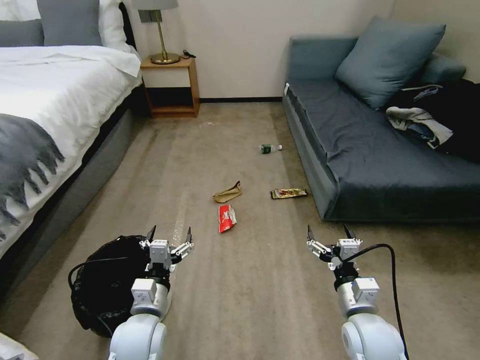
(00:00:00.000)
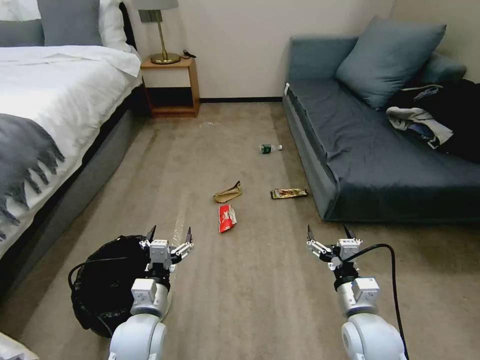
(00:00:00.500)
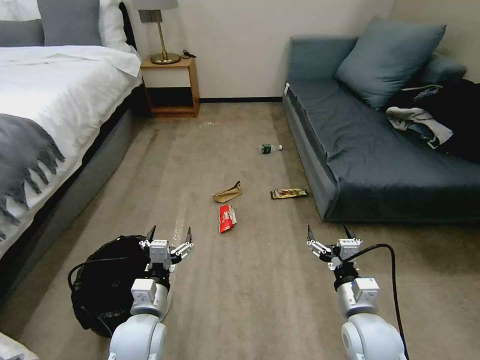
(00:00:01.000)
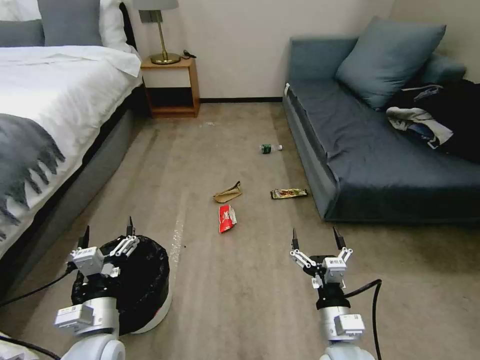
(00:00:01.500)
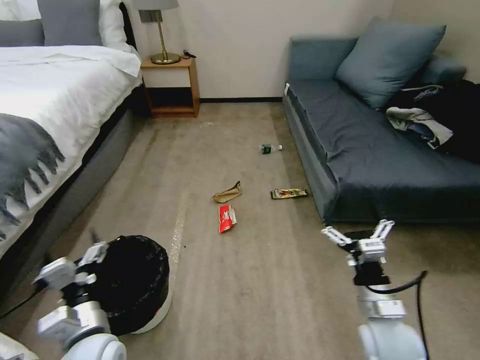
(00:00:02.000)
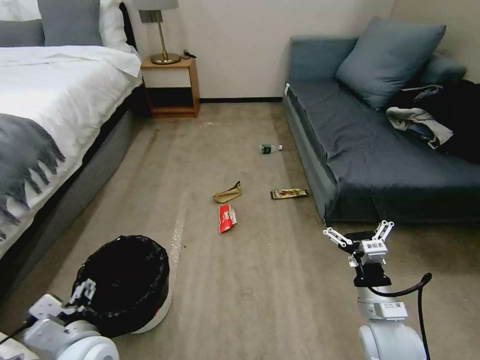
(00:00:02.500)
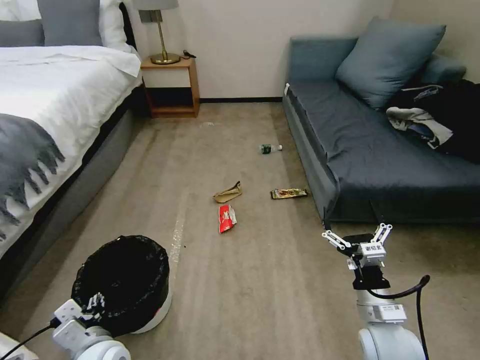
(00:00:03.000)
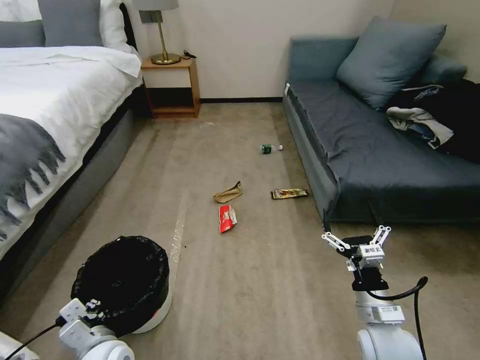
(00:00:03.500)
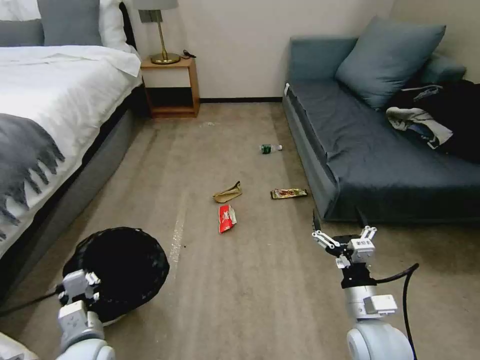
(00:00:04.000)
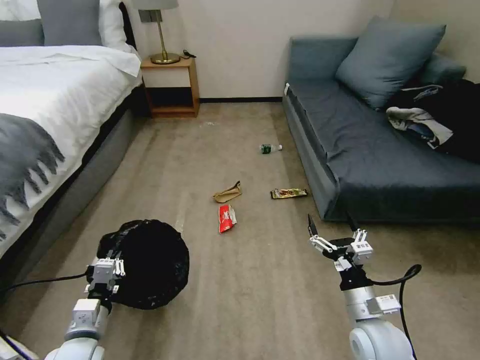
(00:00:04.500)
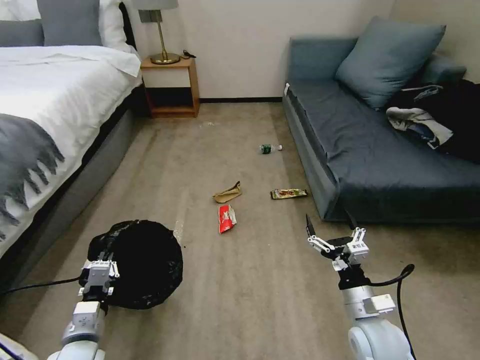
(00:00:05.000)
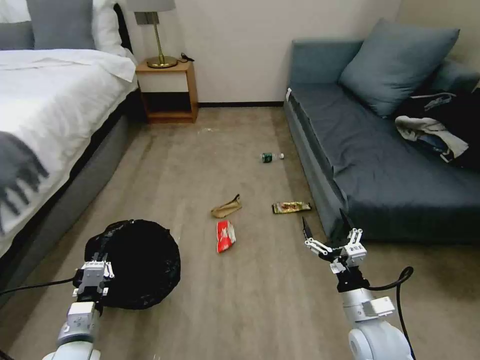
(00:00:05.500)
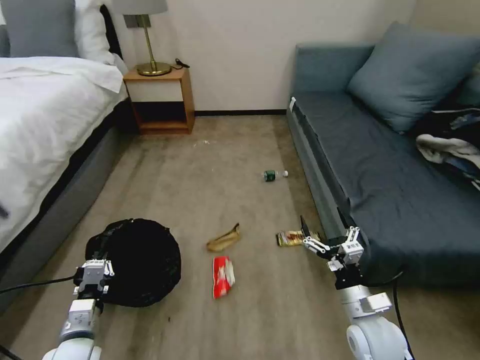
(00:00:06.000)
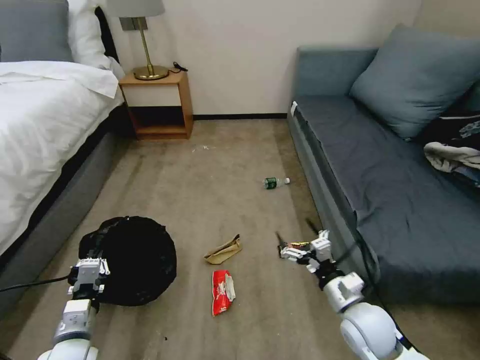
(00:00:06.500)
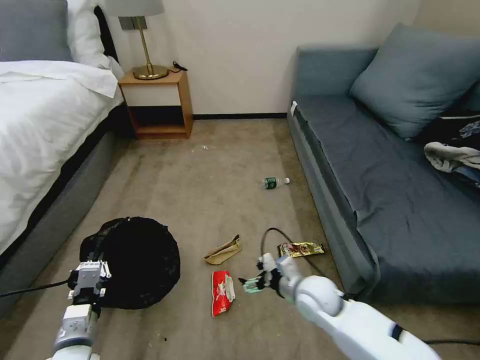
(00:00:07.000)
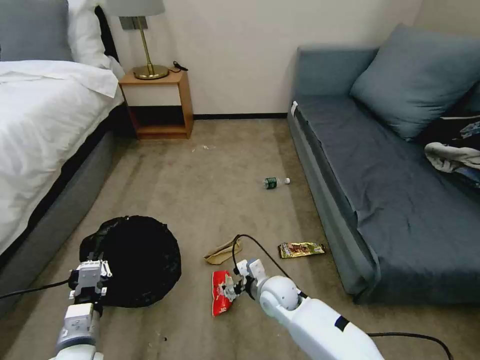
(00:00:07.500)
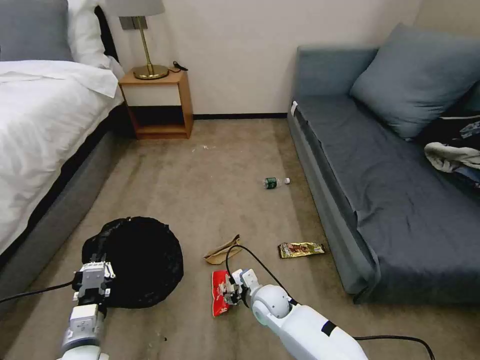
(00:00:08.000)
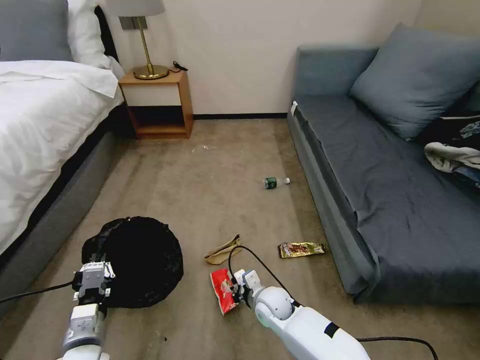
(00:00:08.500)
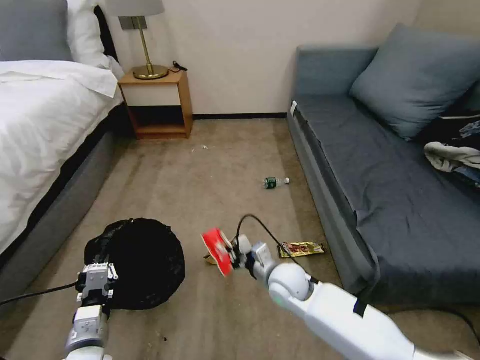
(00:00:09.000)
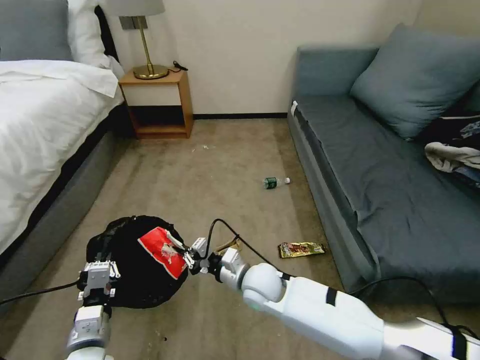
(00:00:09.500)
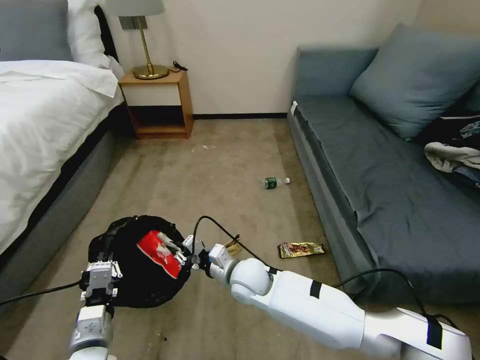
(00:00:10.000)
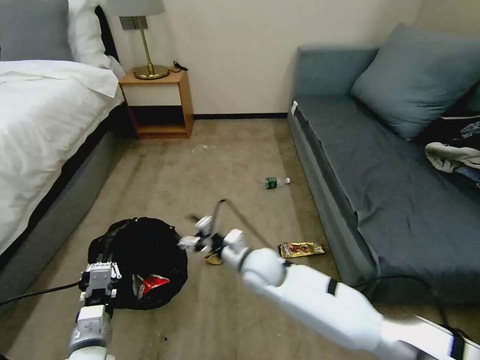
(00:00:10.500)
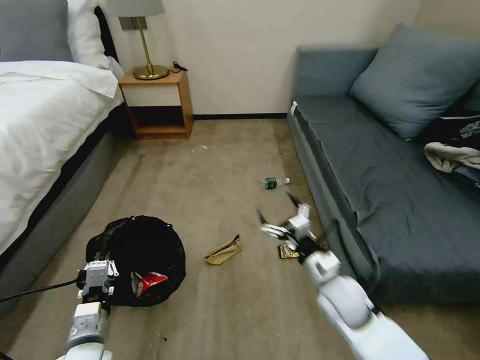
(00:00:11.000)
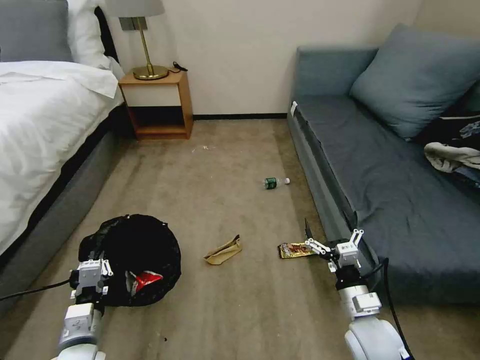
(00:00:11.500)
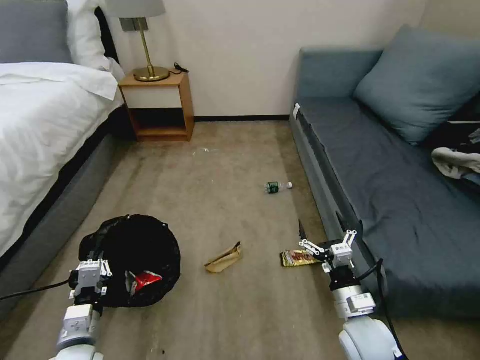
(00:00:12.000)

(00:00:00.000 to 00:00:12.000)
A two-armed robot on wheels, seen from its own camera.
Task of the whole recording: Pick up the trash bin, then pick up the garbage on the floor and place it into the trash bin.
00:00:02.000 - 00:00:04.000: The left gripper moves downward, roughly 5 cm, and closes its fingers.
00:00:06.000 - 00:00:08.000: The right gripper moves to the left, downward and forward, about 25 cm.
00:00:08.000 - 00:00:10.000: The right gripper travels upward and to the left by approximately 10 cm, and closes its fingers.
00:00:10.000 - 00:00:12.000: The right gripper heads to the right and backward, covering approximately 25 cm, and opens.

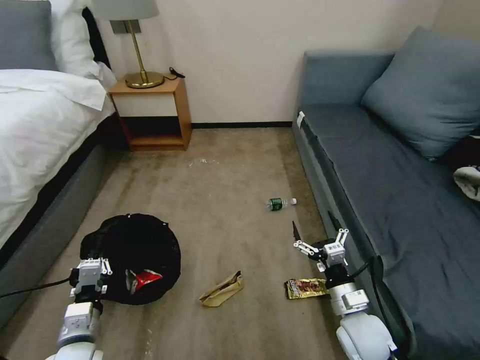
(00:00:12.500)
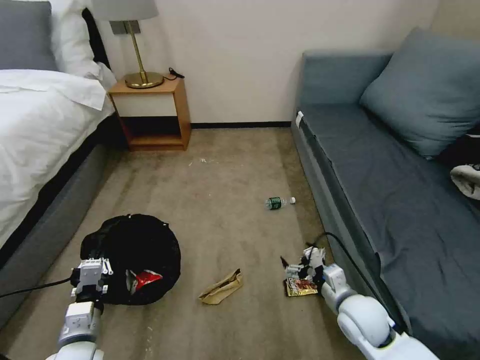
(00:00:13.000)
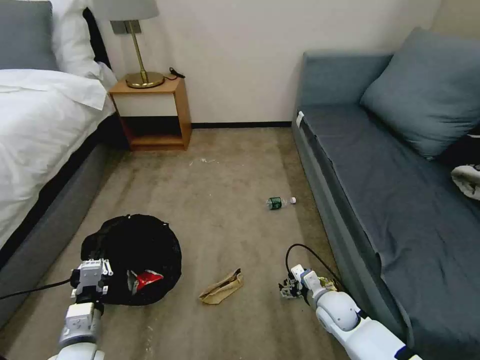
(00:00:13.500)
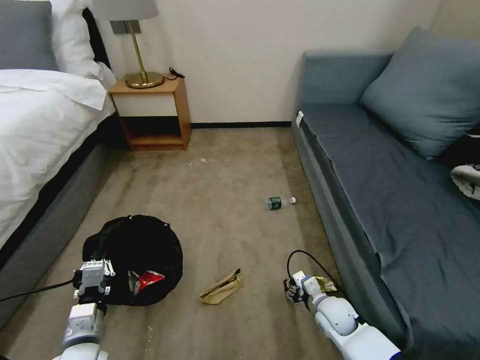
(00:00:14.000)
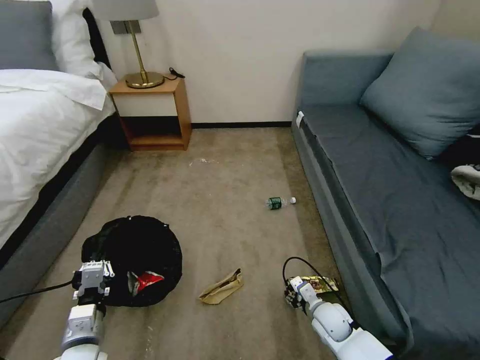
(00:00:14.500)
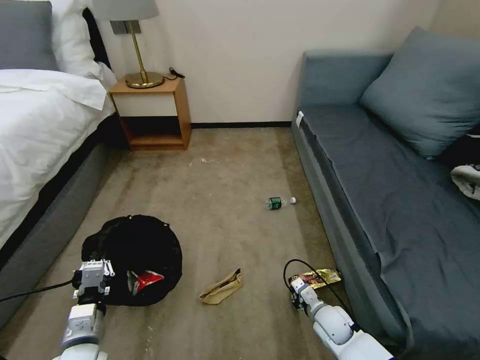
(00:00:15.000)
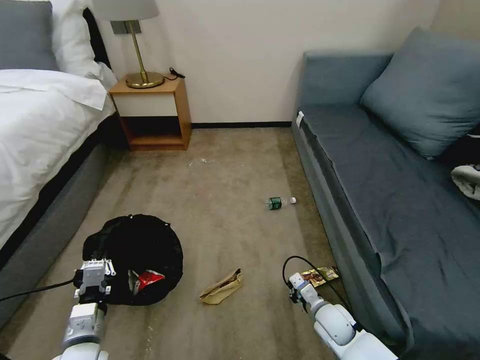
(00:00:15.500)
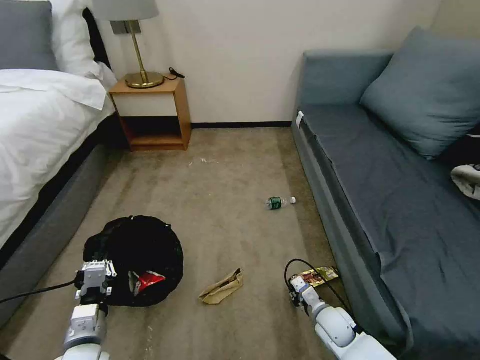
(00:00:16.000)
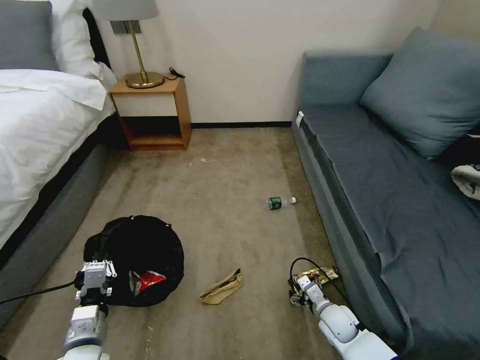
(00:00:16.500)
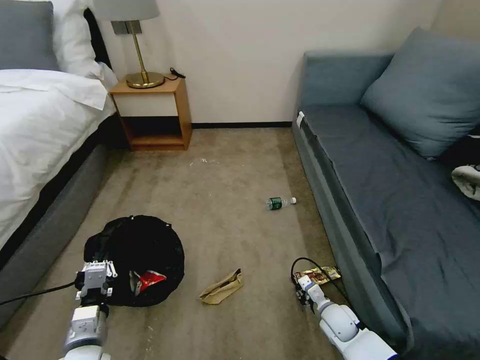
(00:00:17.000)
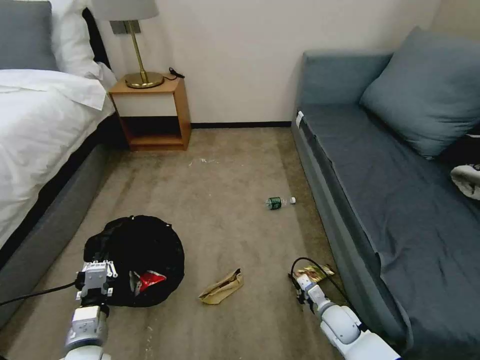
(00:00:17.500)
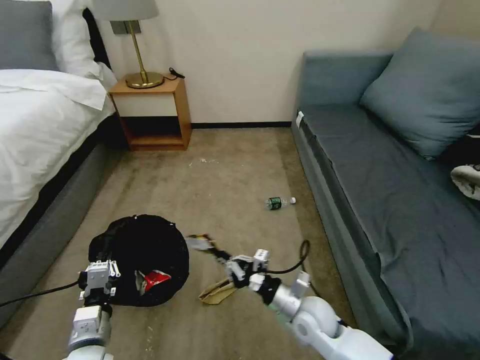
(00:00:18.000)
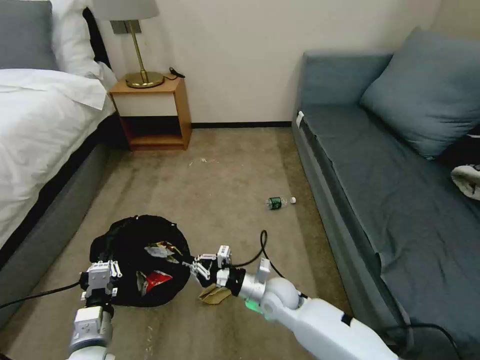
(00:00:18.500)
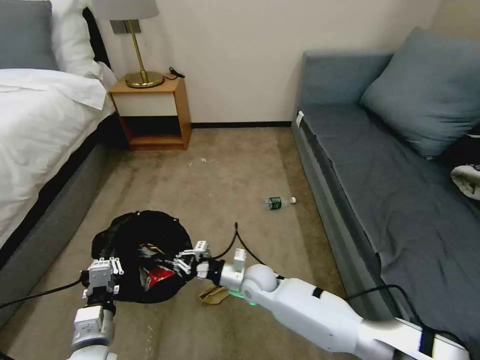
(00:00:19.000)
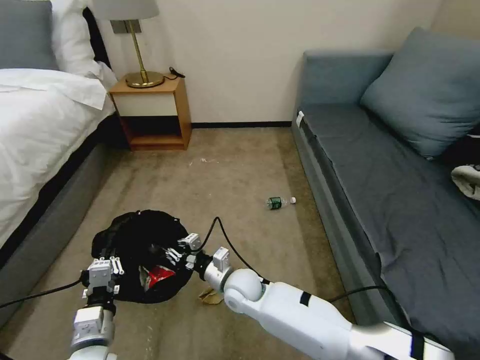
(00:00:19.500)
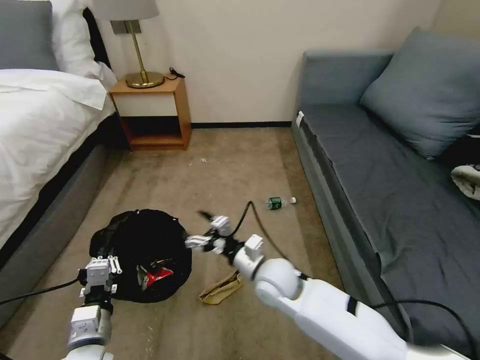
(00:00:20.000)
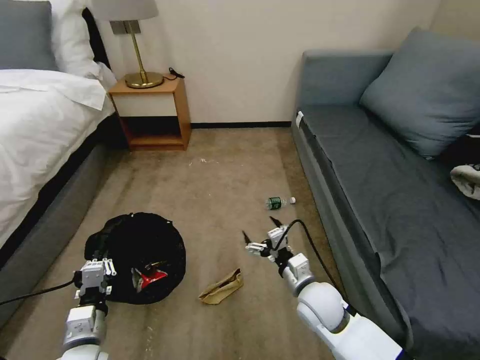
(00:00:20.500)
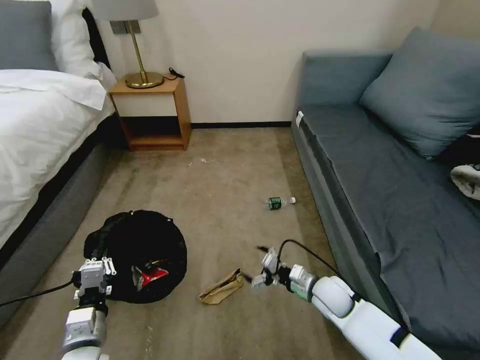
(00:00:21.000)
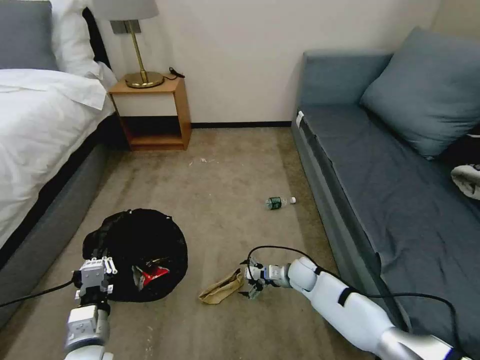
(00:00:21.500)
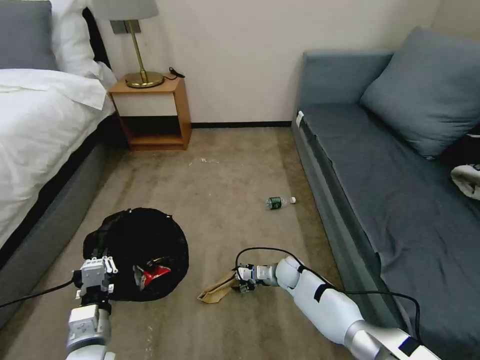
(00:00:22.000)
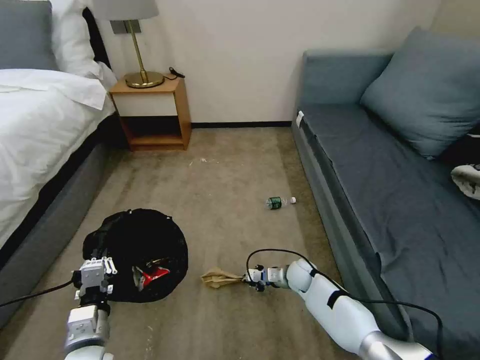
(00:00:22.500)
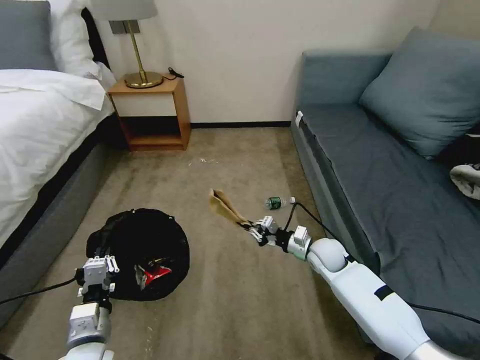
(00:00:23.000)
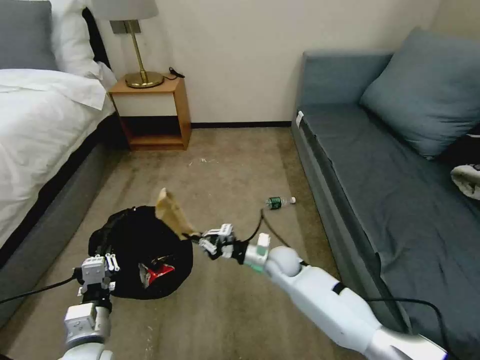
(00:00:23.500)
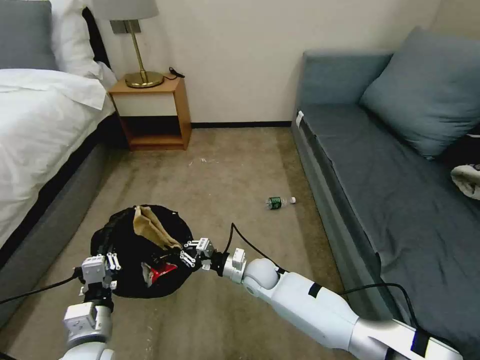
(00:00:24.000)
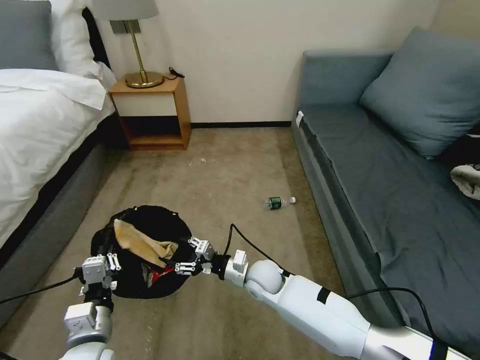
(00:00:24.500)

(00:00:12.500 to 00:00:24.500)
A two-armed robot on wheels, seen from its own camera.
Task of the whole recording: Pick up the trash bin, then pick up the garbage on the floor and place it into the trash bin.
00:00:12.500 - 00:00:14.500: The right gripper shifts roughly 15 cm downward and forward, and closes up.
00:00:14.500 - 00:00:16.500: The right gripper closes and opens again.
00:00:16.500 - 00:00:18.500: The right gripper is displaced to the left and upward by some 20 cm, and closes its fingers.
00:00:18.500 - 00:00:20.500: The right gripper moves to the right and upward, about 10 cm, and opens.
00:00:20.500 - 00:00:22.500: The right gripper heads downward and forward, covering roughly 20 cm, and closes up.
00:00:22.500 - 00:00:24.500: The right gripper heads to the left and upward, covering roughly 15 cm, and opens.

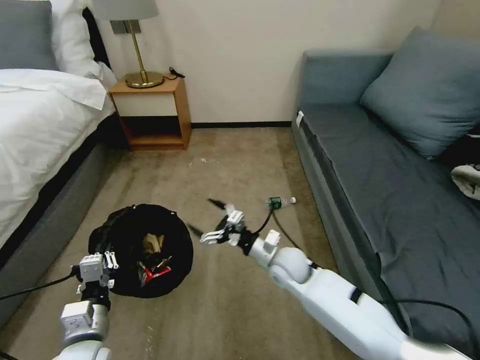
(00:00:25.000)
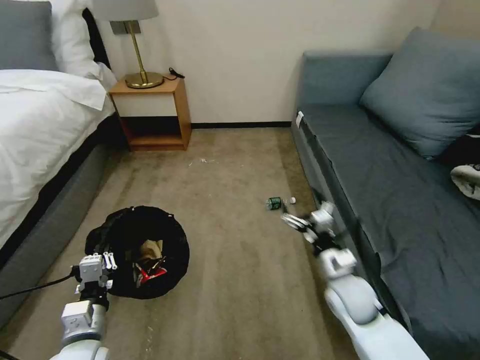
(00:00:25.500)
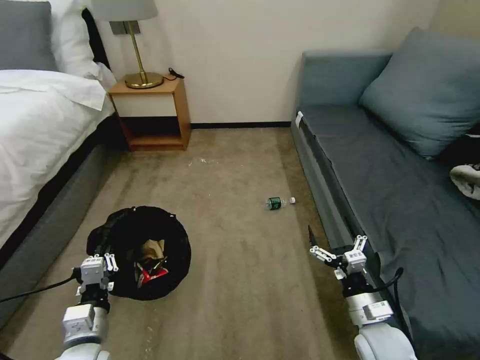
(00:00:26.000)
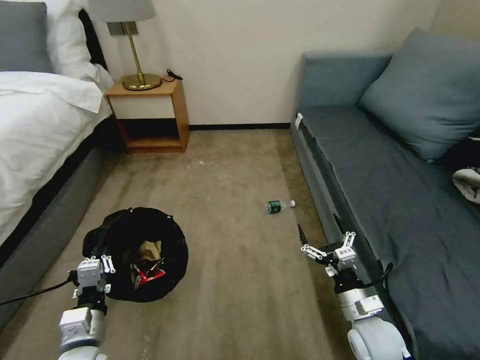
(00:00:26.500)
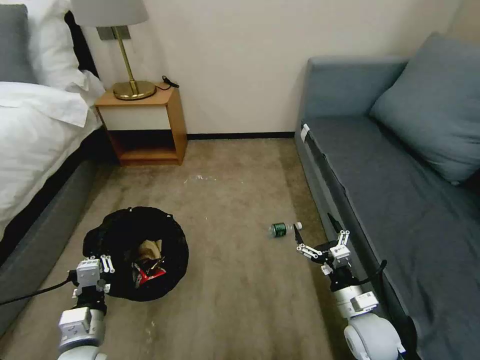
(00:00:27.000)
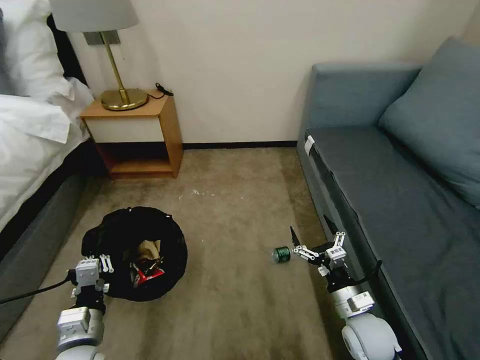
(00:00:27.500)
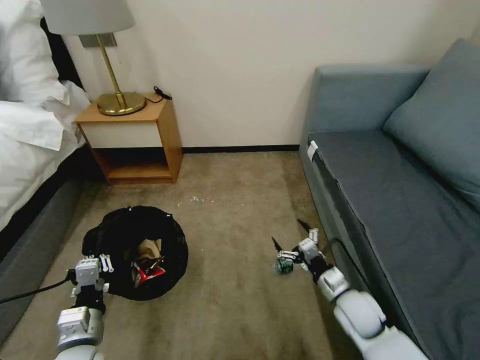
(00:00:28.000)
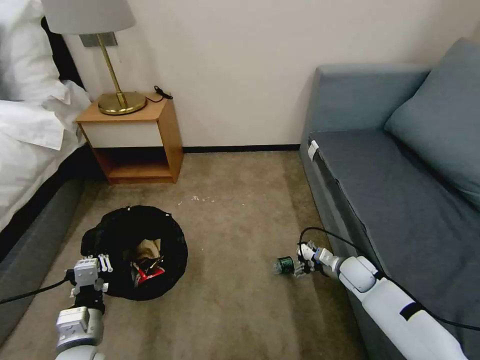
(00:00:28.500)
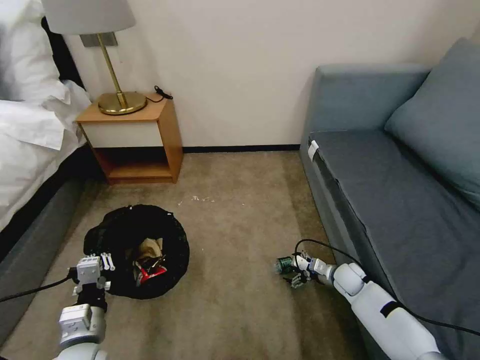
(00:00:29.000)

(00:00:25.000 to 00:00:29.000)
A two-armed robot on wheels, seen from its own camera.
Task of the whole recording: Pick up the trash bin, then pick up the garbage on the floor and place it into the trash bin.
00:00:25.000 - 00:00:27.000: The right gripper heads to the right and backward, covering roughly 20 cm.
00:00:27.000 - 00:00:29.000: The right gripper moves forward and downward, about 20 cm.